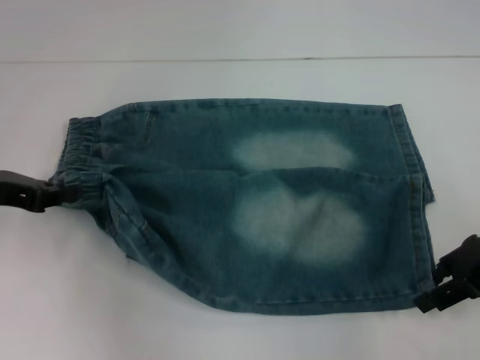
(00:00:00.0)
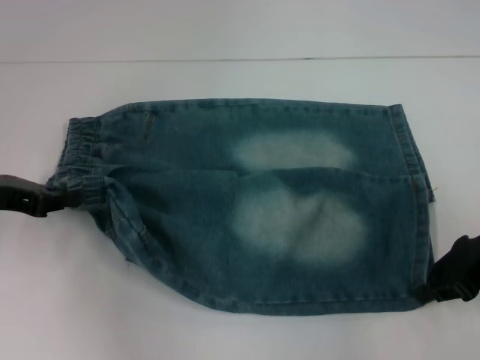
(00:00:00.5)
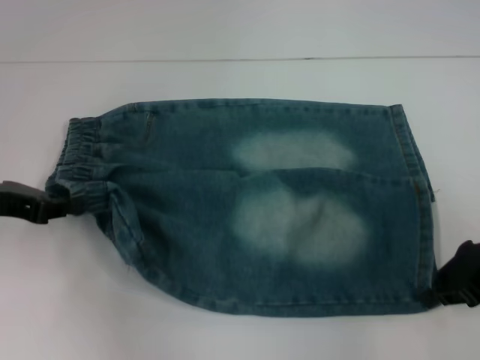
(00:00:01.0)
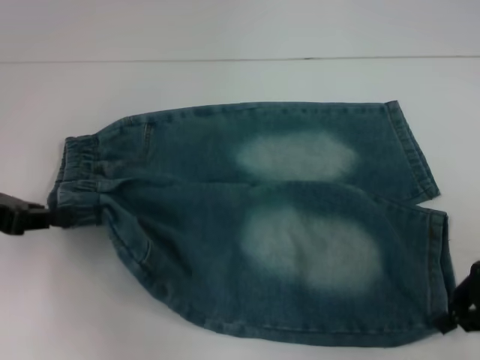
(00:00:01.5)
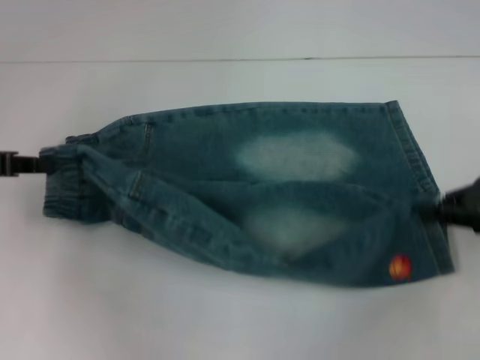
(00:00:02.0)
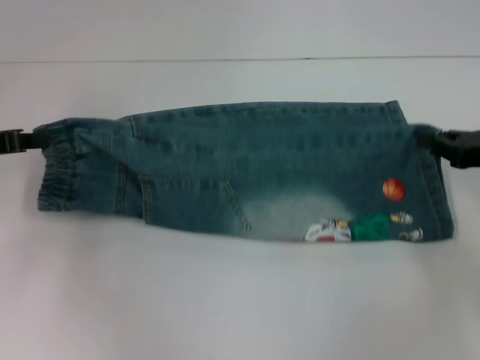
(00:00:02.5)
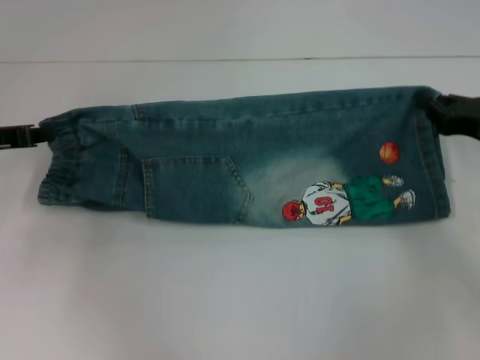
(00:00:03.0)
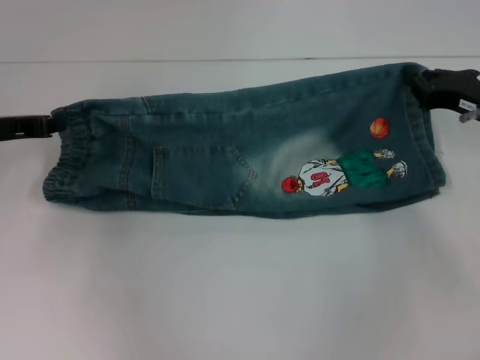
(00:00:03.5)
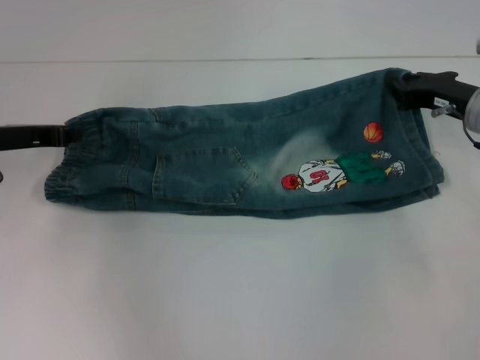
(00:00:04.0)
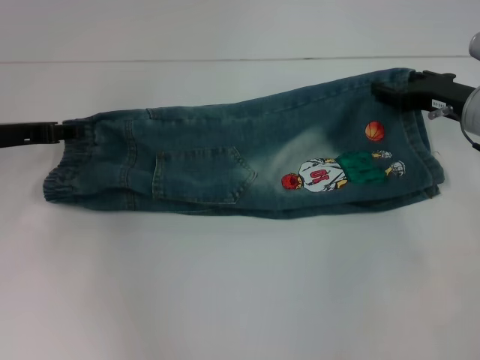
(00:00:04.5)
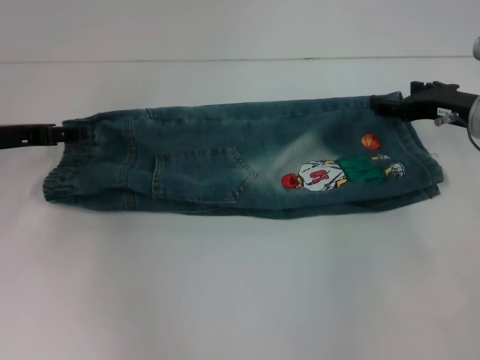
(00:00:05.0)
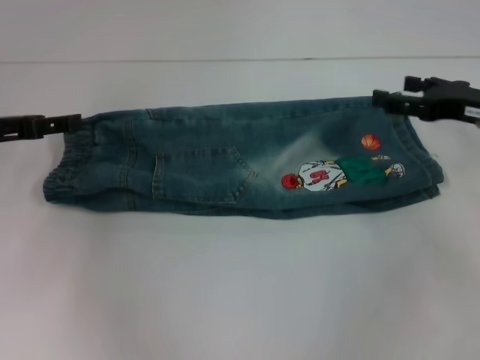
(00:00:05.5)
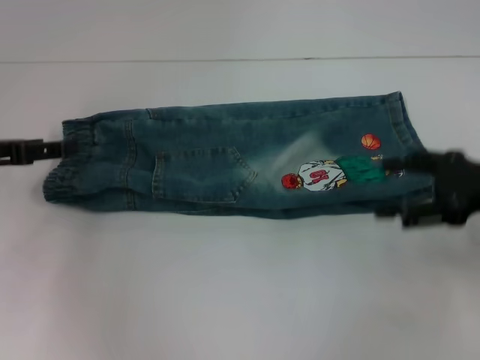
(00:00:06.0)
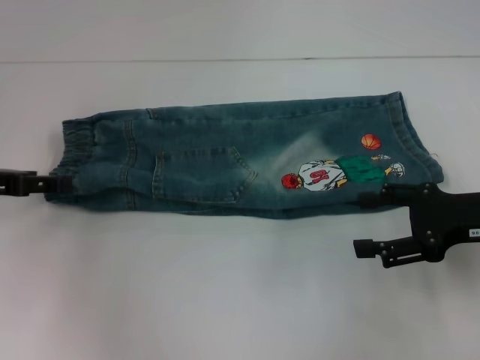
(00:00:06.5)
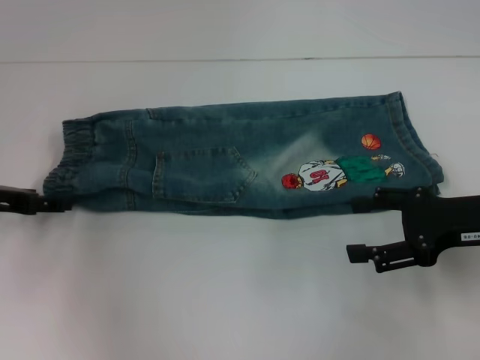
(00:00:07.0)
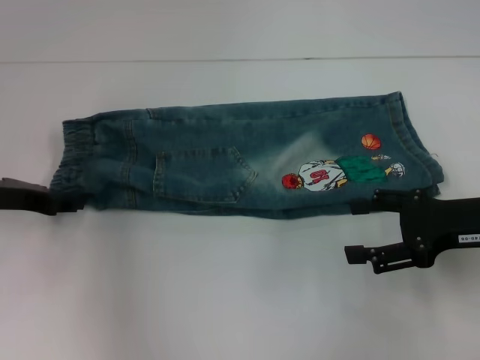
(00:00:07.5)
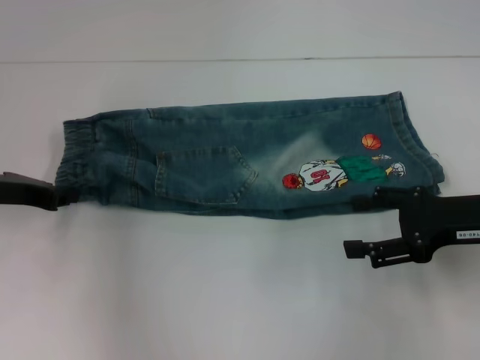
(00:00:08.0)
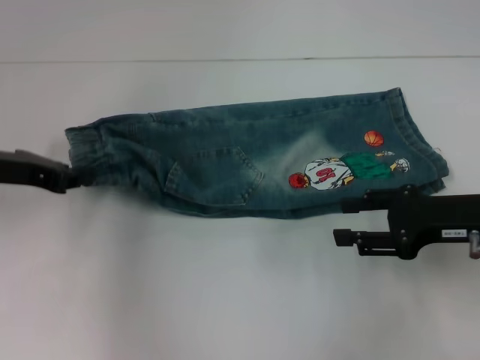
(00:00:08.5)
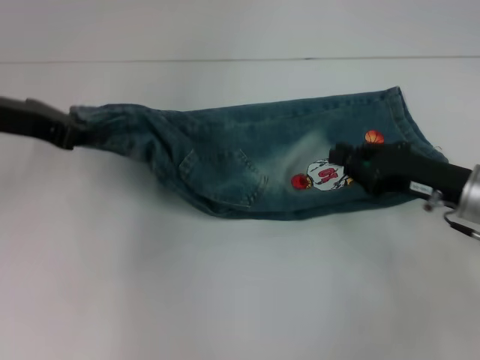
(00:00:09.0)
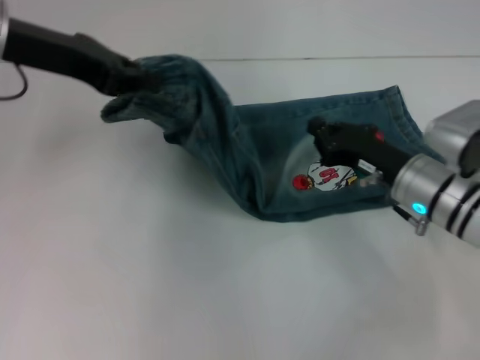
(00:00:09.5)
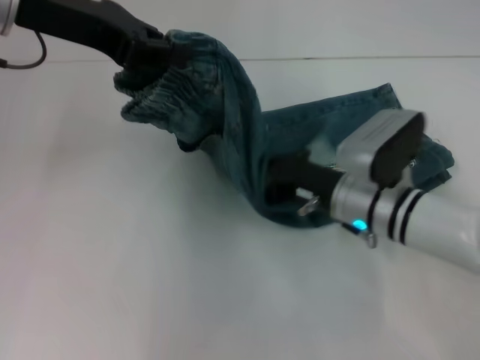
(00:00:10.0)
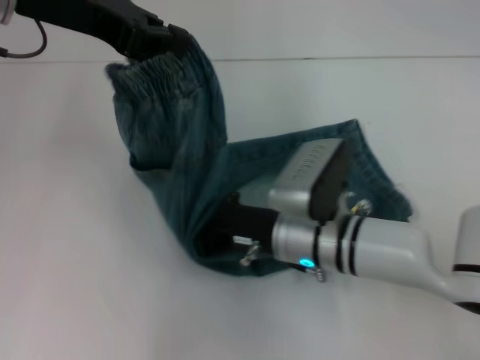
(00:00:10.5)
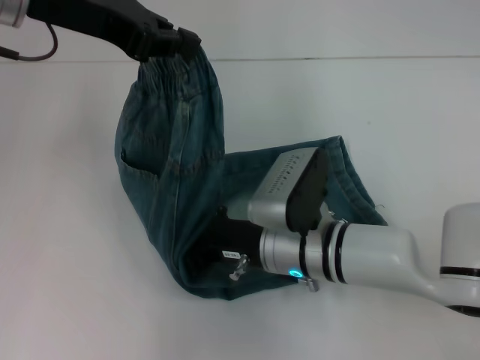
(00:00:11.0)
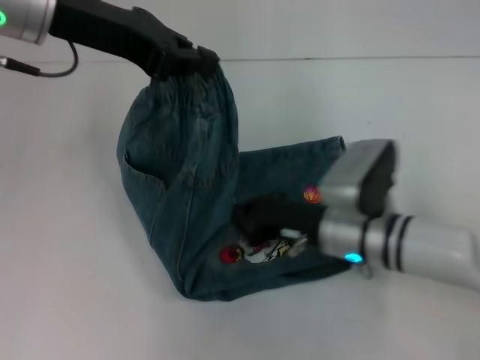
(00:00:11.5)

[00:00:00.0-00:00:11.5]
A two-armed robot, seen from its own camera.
Step, 00:00:00.5 to 00:00:05.0: Fold upward with your left hand.
Step, 00:00:05.5 to 00:00:07.5: Hold the waistband with your left hand.
Step, 00:00:08.0 to 00:00:11.0: Press the middle of the pants with your right hand.
00:00:00.0 to 00:00:02.0: The right gripper closes up.
00:00:02.0 to 00:00:04.0: The left gripper moves about 10 cm. The right gripper heads forward and to the left, covering about 10 cm.
00:00:04.0 to 00:00:06.0: The right gripper travels backward by roughly 10 cm, and opens. Meanwhile the left gripper ends up some 5 cm from where it was, and opens up.
00:00:06.0 to 00:00:07.5: The grippers move only a little.
00:00:07.5 to 00:00:09.5: The left gripper moves upward and to the right, roughly 15 cm, and closes its fingers, while the right gripper heads to the left and downward, covering about 10 cm, and closes up.
00:00:09.5 to 00:00:11.5: The right gripper travels to the left by about 5 cm.

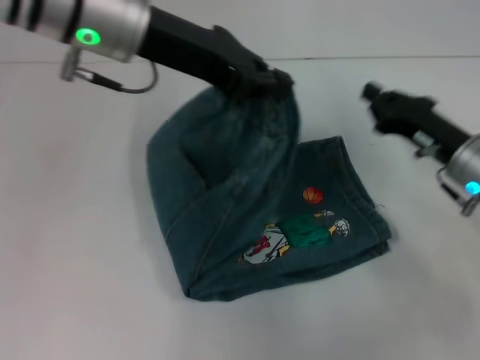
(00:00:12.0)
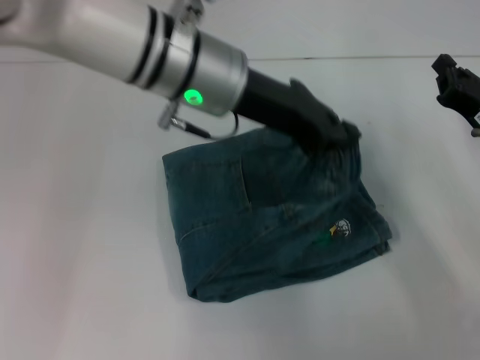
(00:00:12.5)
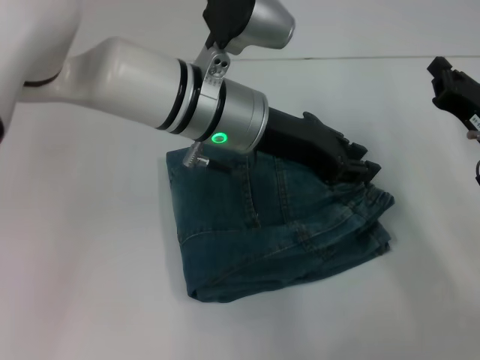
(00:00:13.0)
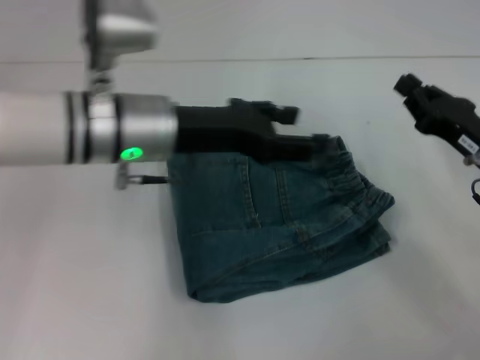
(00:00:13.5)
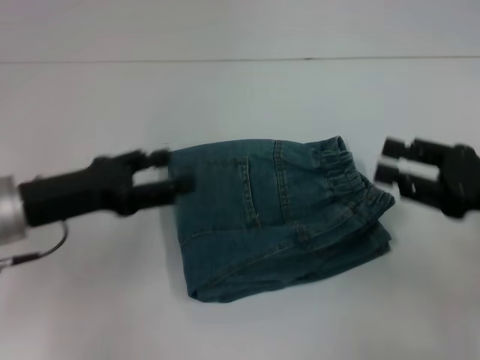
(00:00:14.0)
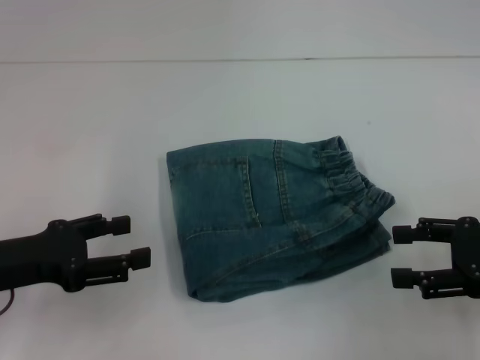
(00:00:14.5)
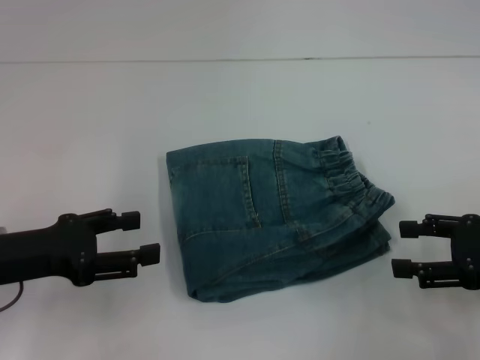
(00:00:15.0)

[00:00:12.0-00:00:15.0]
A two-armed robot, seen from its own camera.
00:00:12.0 to 00:00:13.5: The left gripper travels downward by roughly 10 cm, and opens up.
00:00:13.5 to 00:00:15.0: The left gripper goes some 20 cm to the left and backward. Meanwhile the right gripper moves backward, roughly 5 cm, and opens.
